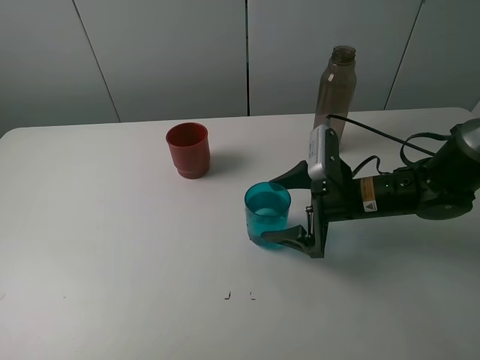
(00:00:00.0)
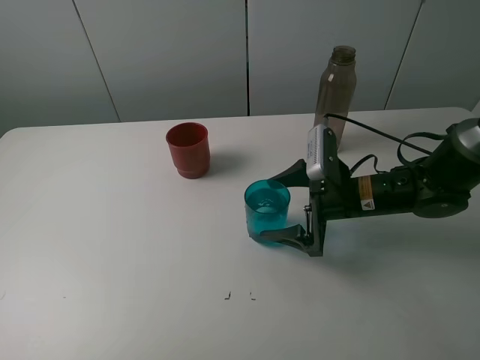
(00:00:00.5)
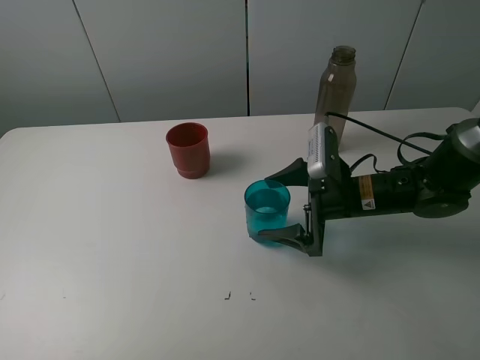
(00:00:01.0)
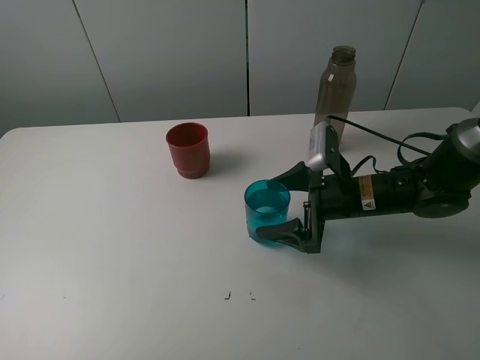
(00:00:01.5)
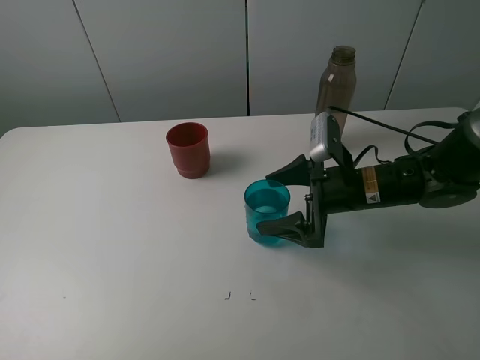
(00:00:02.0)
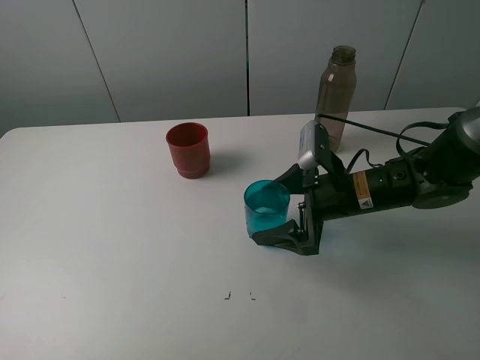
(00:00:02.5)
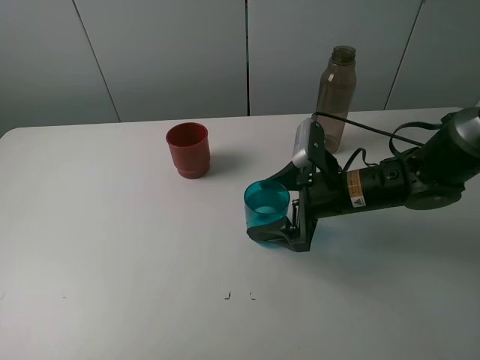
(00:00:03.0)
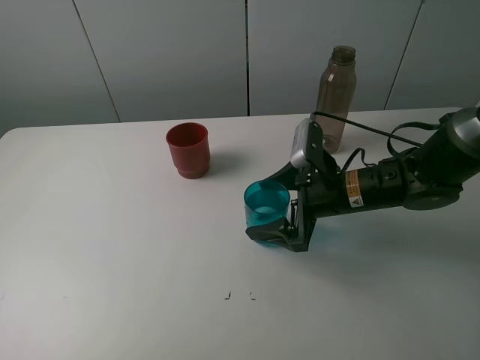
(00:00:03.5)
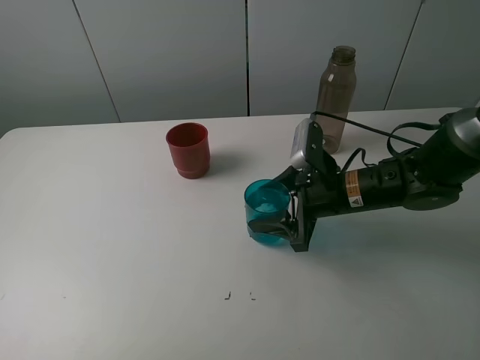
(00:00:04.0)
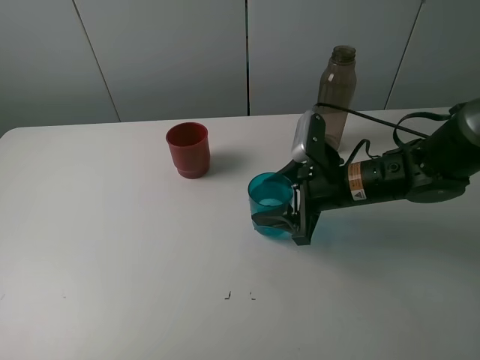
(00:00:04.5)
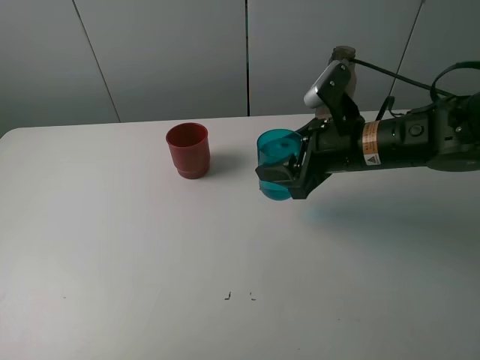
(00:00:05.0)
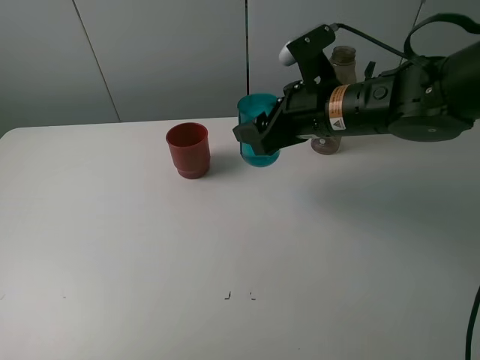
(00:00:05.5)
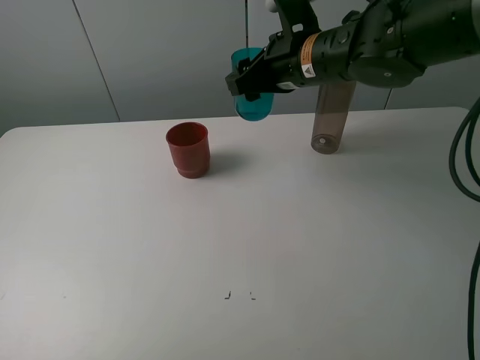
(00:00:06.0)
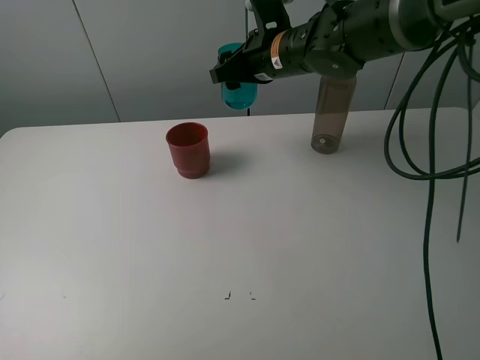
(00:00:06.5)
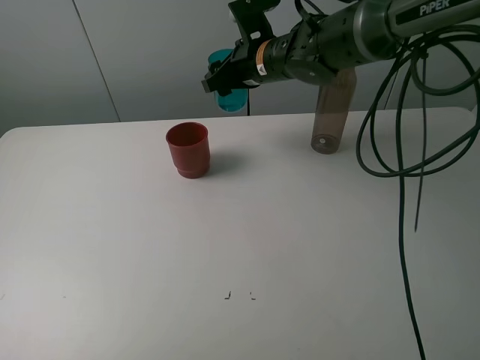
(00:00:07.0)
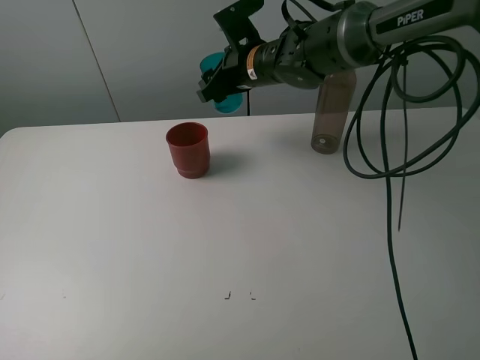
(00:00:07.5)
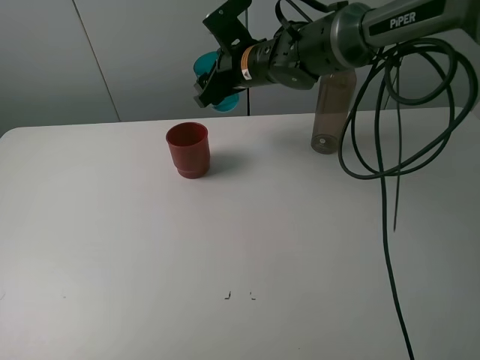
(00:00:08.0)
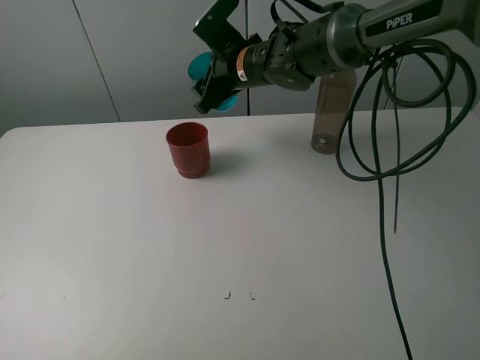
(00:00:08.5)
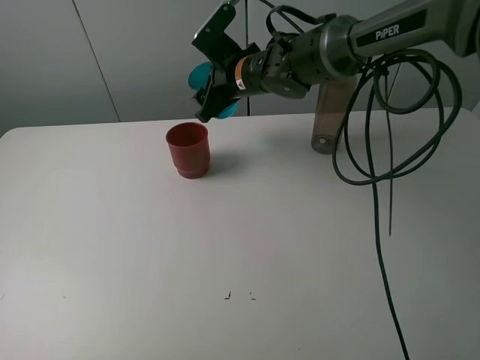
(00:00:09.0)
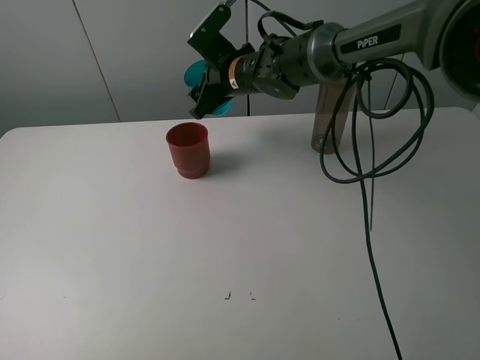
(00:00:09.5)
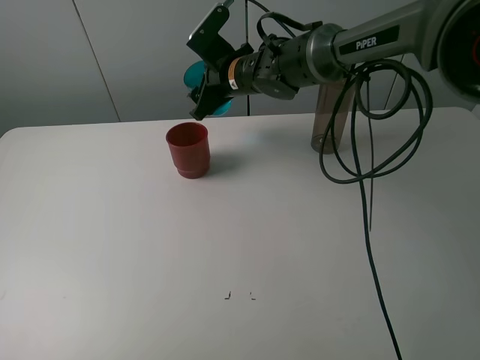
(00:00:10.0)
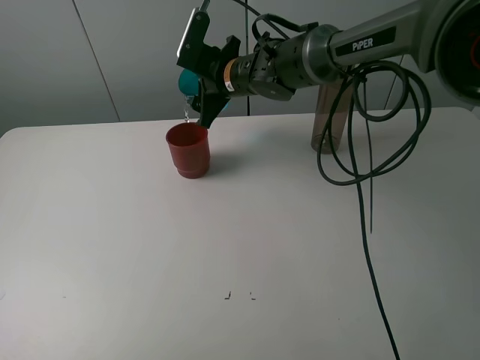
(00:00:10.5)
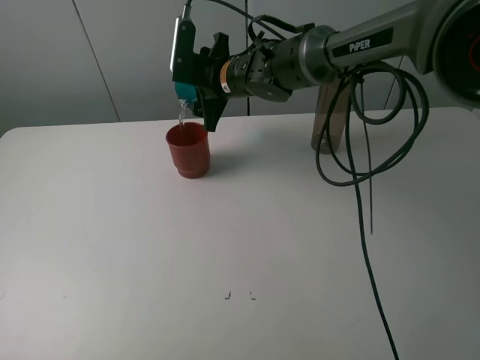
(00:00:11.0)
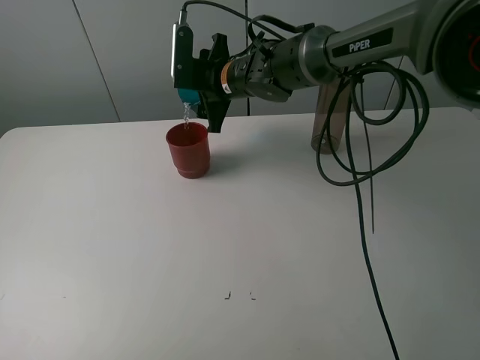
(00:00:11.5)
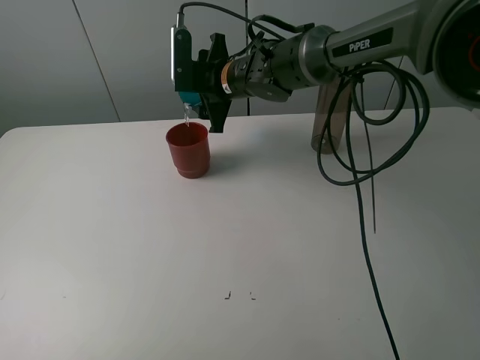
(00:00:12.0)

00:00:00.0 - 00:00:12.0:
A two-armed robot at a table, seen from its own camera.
Task of the whole recording: pick up the bottle and pour water into the cup, then pick up the cup containing water and pour it into another cup.
Step, 00:00:00.0 - 00:00:04.0: Grasp the blue cup with the right gripper.
00:00:00.0 - 00:00:02.0: The grippers move only a little.
00:00:02.0 - 00:00:04.0: The right gripper closes its fingers.
00:00:04.0 - 00:00:06.0: The right gripper is displaced upward and forward by about 15 cm.
00:00:06.0 - 00:00:08.0: The right gripper travels forward and to the left by approximately 10 cm.
00:00:08.0 - 00:00:10.0: The grippers make only small movements.

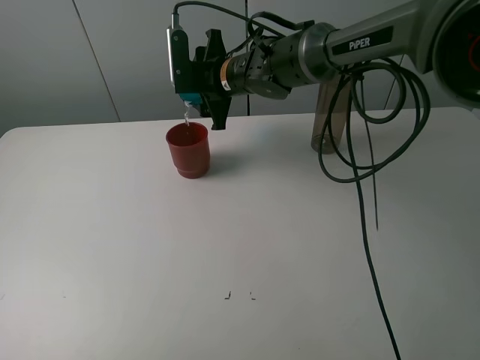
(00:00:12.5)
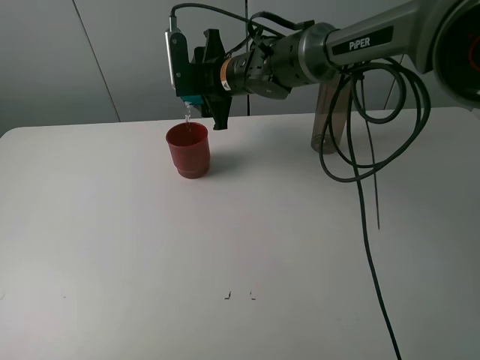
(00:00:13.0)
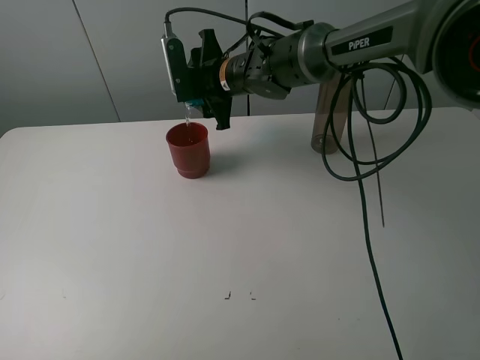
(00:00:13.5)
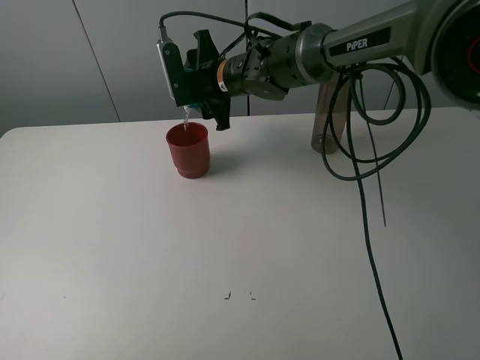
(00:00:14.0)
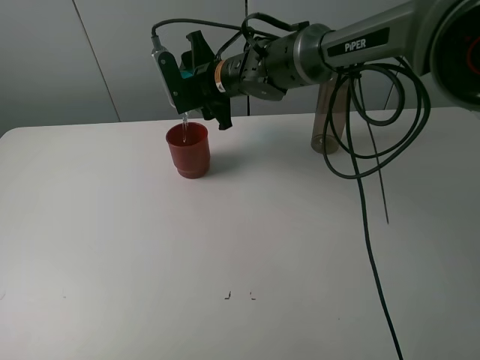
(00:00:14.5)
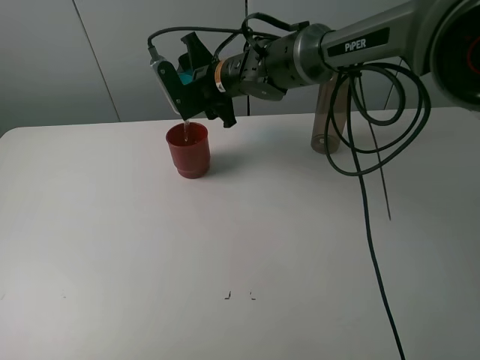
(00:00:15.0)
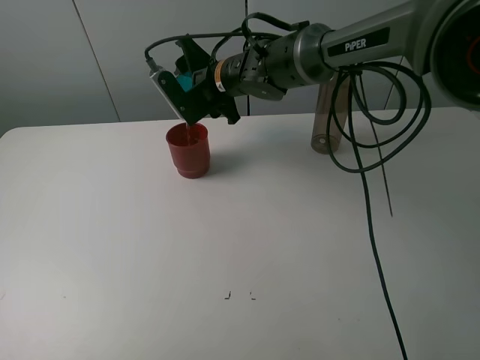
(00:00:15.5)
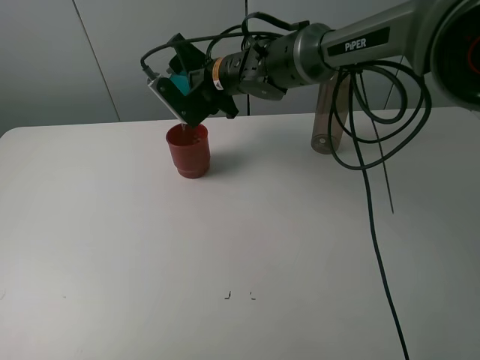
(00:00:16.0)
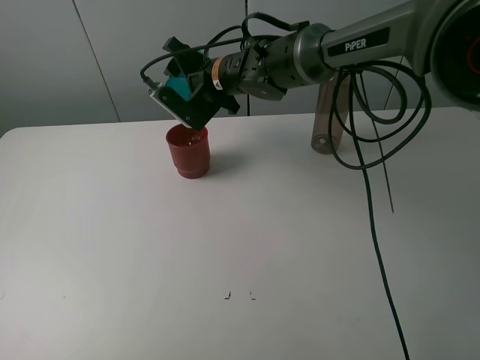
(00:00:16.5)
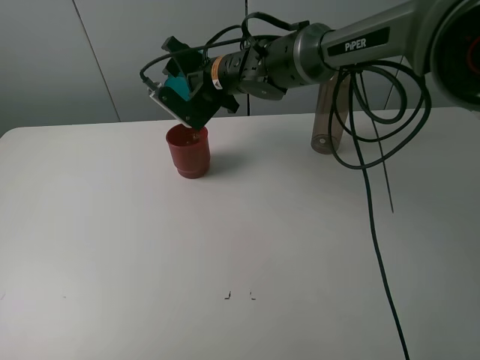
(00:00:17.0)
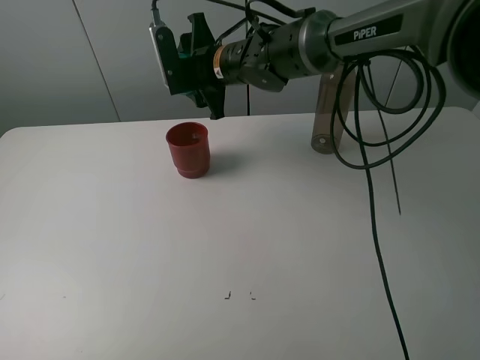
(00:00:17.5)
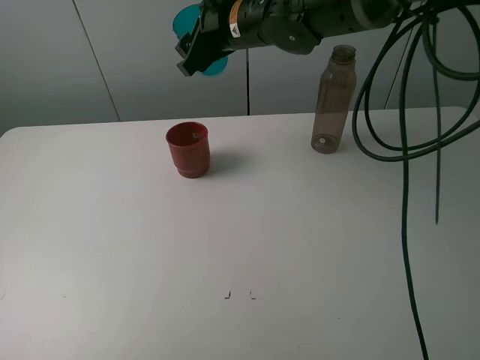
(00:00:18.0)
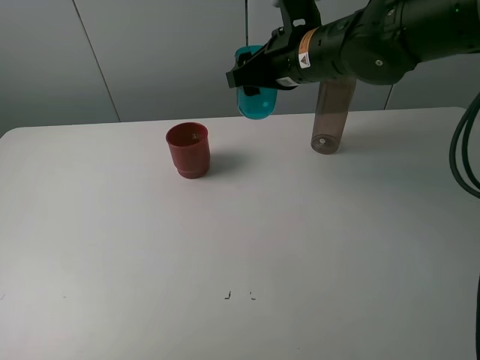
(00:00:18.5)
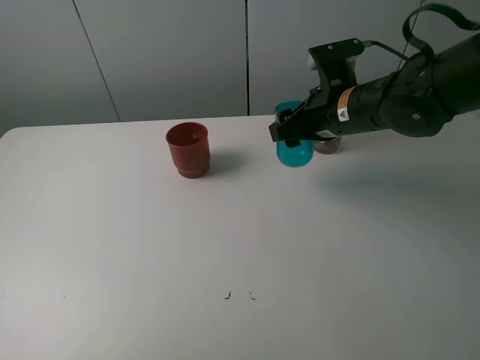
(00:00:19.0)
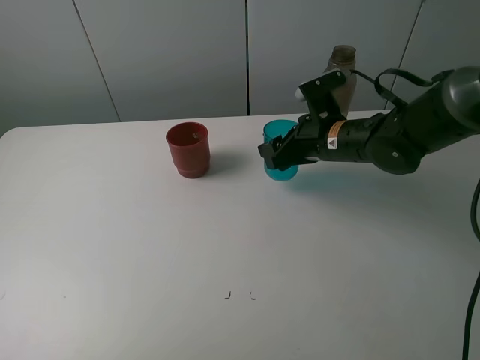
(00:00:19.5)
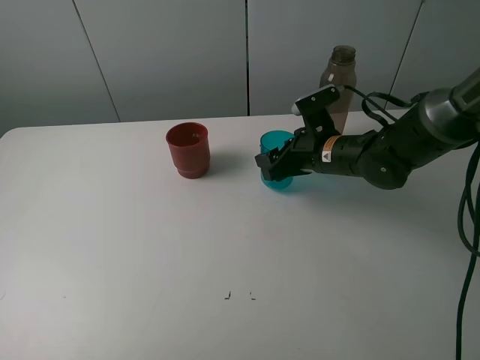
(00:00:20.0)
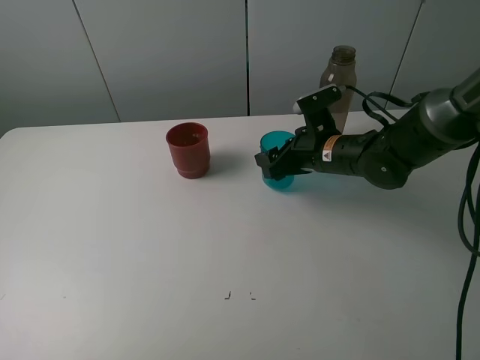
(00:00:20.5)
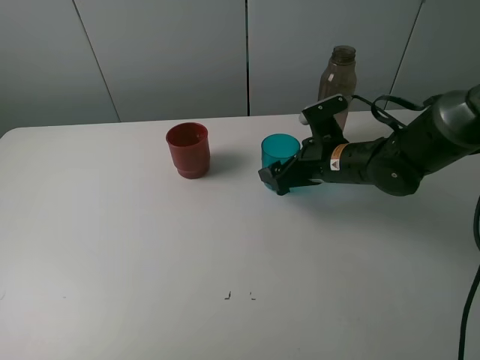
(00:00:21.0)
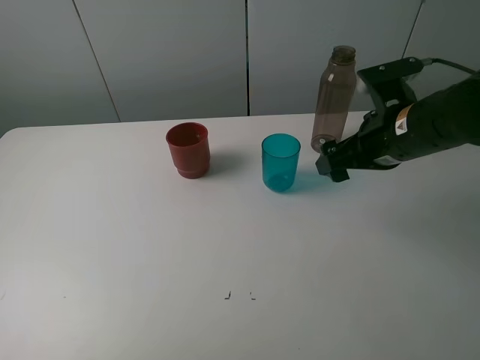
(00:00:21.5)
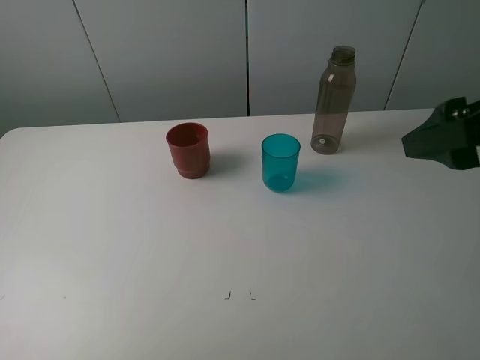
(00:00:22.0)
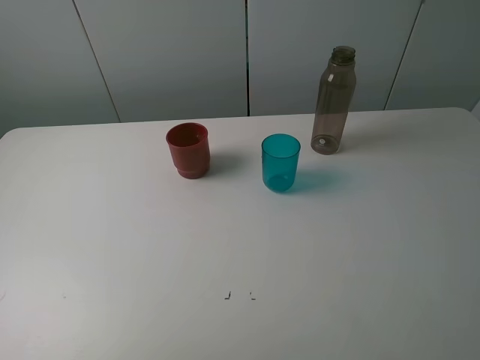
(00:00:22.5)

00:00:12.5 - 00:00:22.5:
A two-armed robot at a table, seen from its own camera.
Task of the whole recording: pick up the bottle and pour water into the cup, then pick up the cup containing water and pour it into another cup.
Step, 00:00:12.5 - 00:00:15.5: Pour water from blue cup to red cup with the right gripper.
Step, 00:00:16.0 - 00:00:20.5: Place the blue cup with the right gripper.
00:00:12.5 - 00:00:14.5: The grippers move only a little.
00:00:16.5 - 00:00:18.5: The right gripper travels to the right, backward and upward by some 15 cm.
00:00:18.5 - 00:00:20.5: The right gripper is displaced downward by roughly 15 cm.
00:00:20.5 - 00:00:22.5: The right gripper goes roughly 40 cm backward, upward and to the right, and opens its fingers.

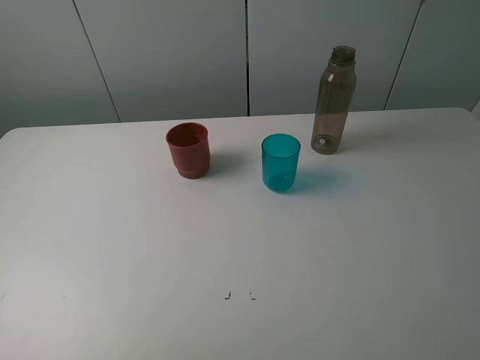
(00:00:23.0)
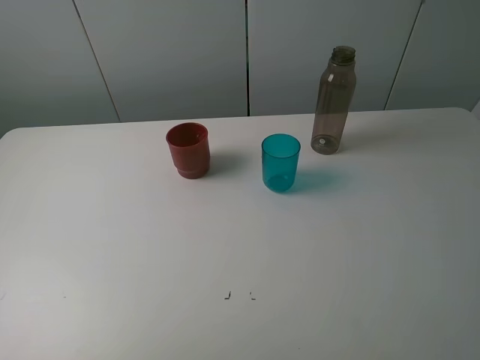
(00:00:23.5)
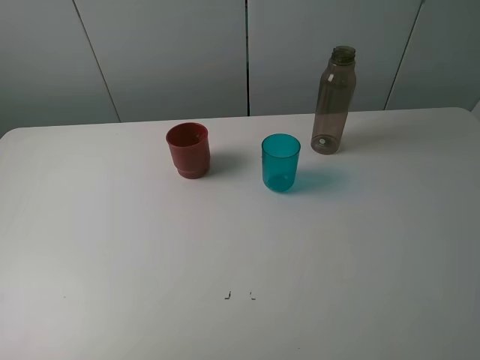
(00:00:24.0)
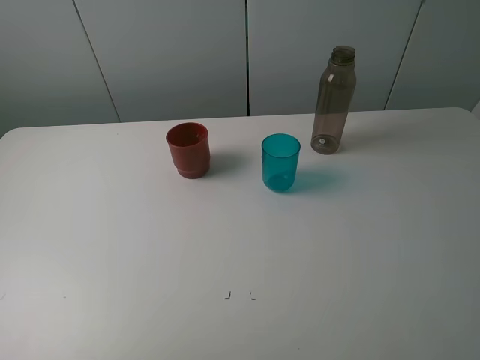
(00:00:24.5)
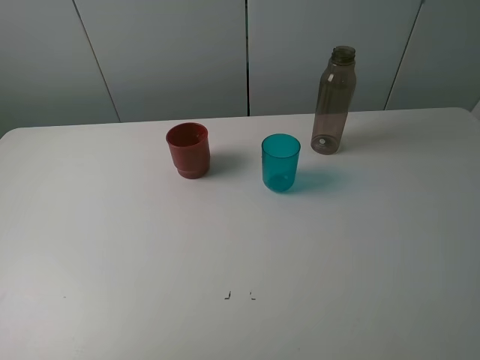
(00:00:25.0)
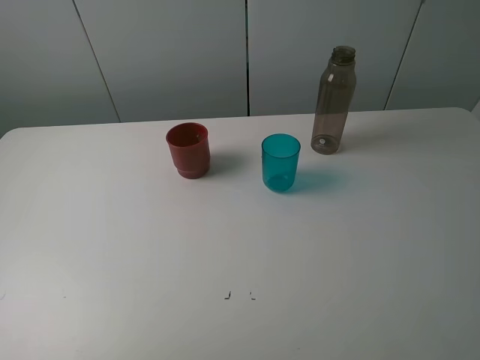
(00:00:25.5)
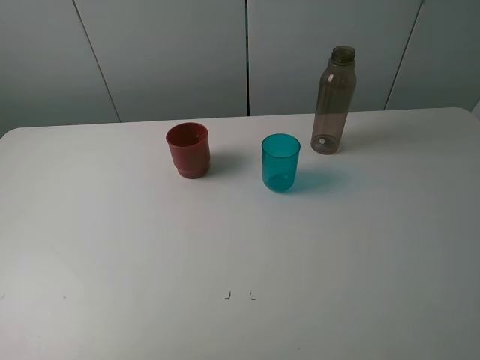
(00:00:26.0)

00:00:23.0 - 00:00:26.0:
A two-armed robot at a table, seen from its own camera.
Task of the whole recording: pick up the bottle and pour water into the cup, then pick up the cup containing water and pour it into another cup.
00:00:24.5 - 00:00:26.0: Both grippers stay about where they are.
